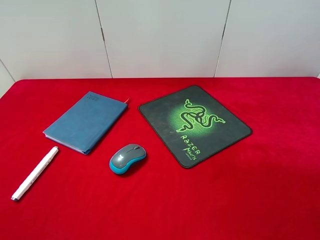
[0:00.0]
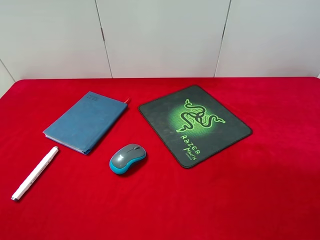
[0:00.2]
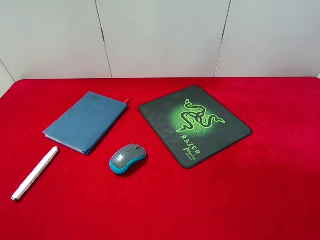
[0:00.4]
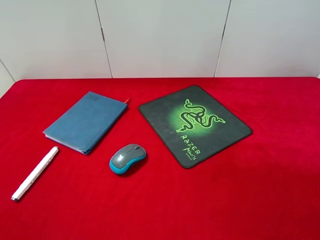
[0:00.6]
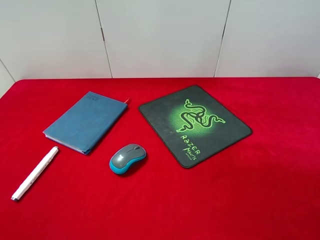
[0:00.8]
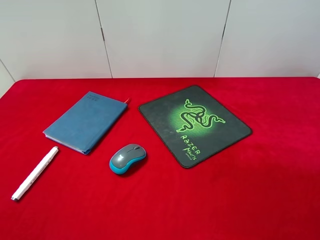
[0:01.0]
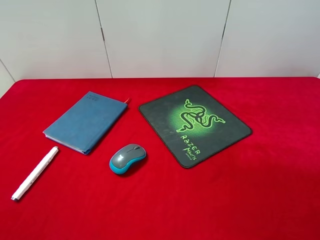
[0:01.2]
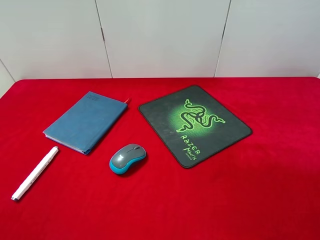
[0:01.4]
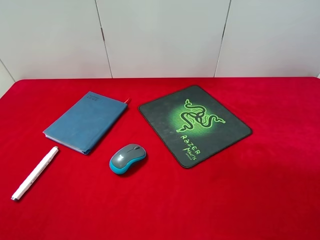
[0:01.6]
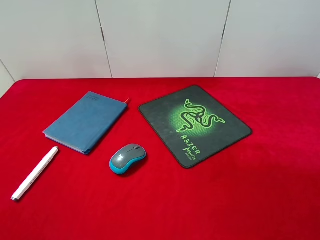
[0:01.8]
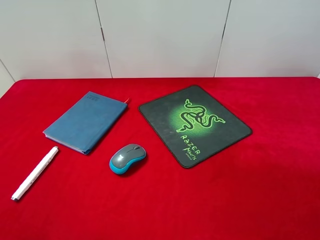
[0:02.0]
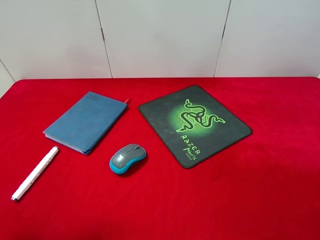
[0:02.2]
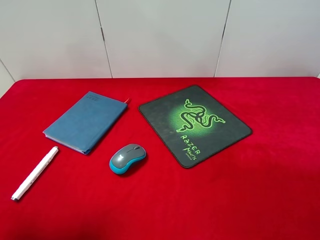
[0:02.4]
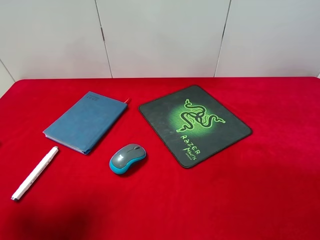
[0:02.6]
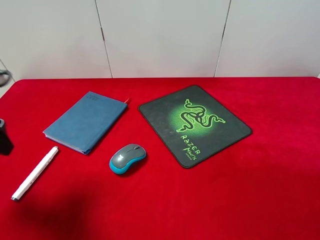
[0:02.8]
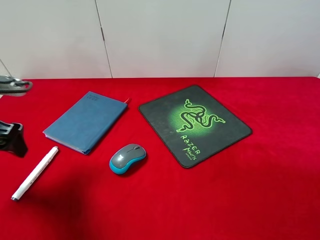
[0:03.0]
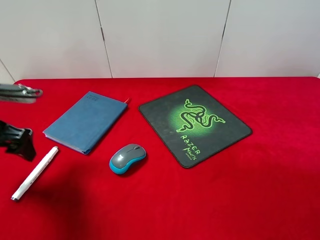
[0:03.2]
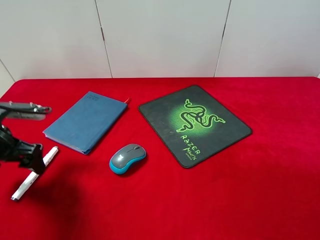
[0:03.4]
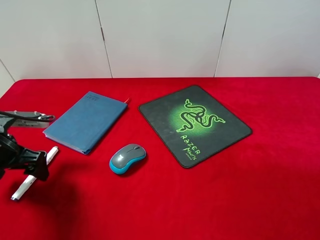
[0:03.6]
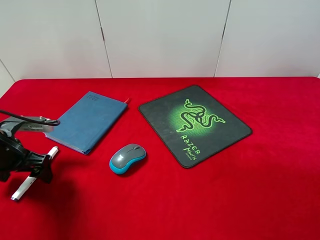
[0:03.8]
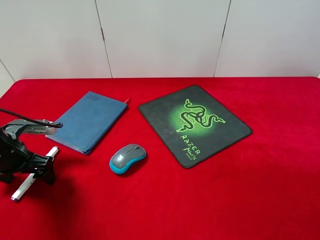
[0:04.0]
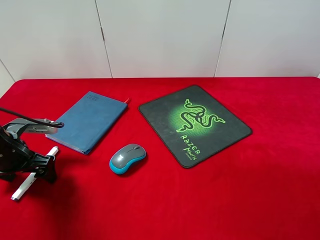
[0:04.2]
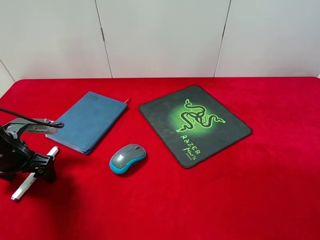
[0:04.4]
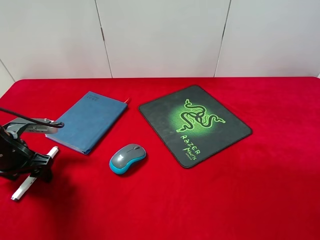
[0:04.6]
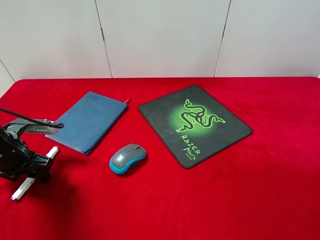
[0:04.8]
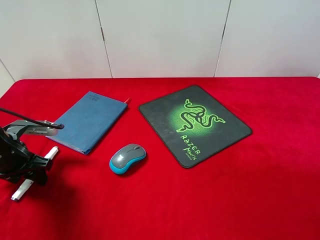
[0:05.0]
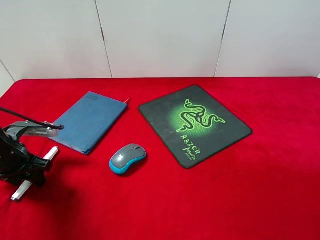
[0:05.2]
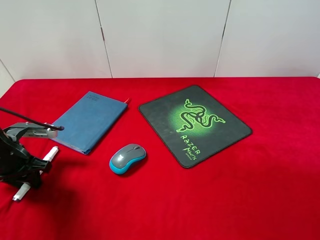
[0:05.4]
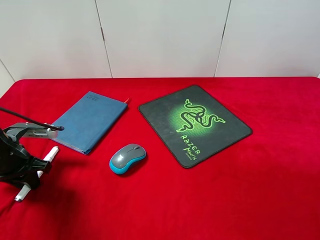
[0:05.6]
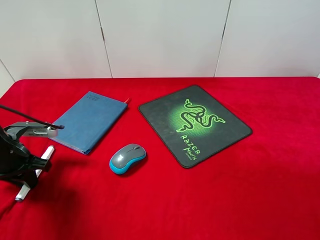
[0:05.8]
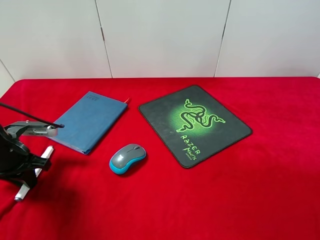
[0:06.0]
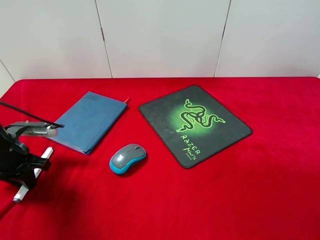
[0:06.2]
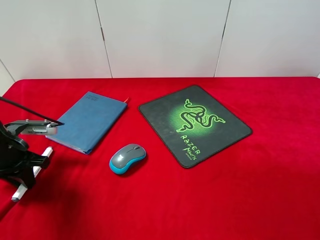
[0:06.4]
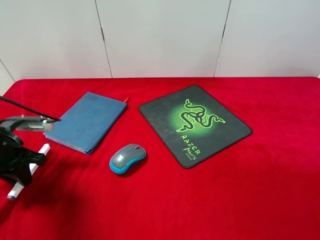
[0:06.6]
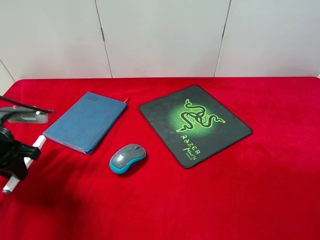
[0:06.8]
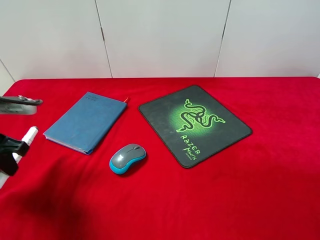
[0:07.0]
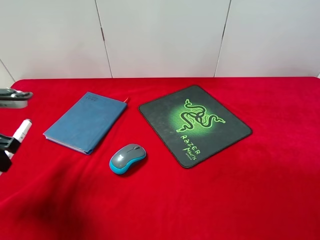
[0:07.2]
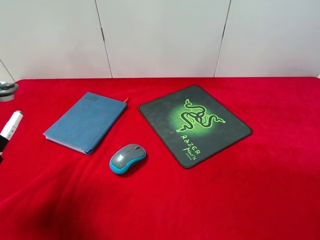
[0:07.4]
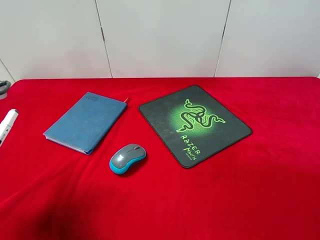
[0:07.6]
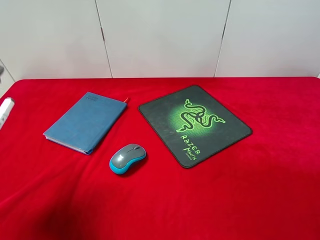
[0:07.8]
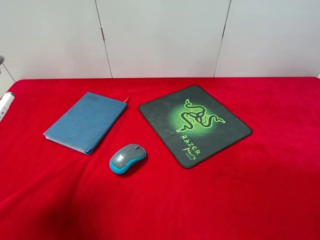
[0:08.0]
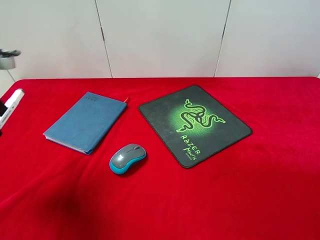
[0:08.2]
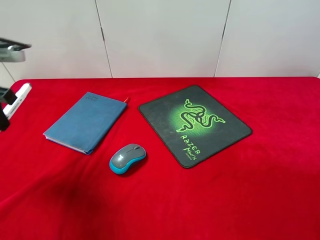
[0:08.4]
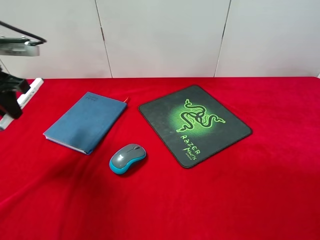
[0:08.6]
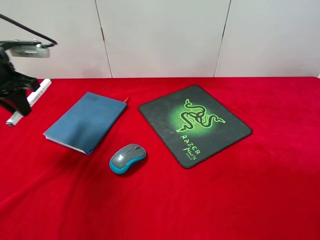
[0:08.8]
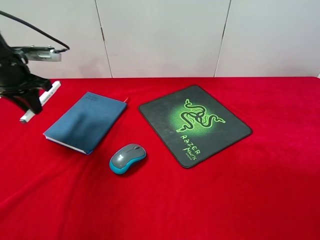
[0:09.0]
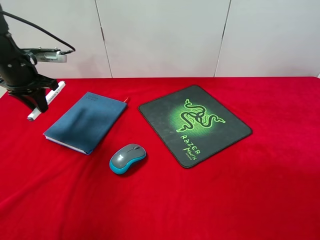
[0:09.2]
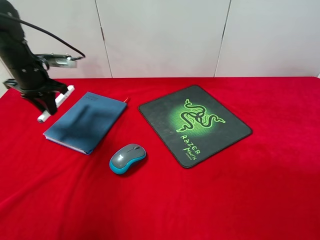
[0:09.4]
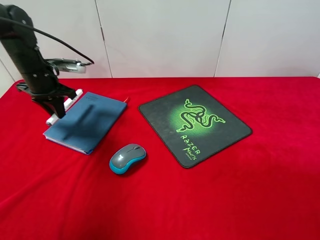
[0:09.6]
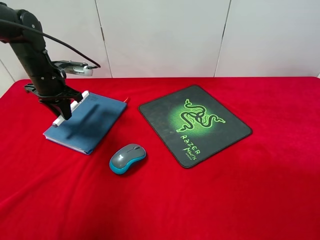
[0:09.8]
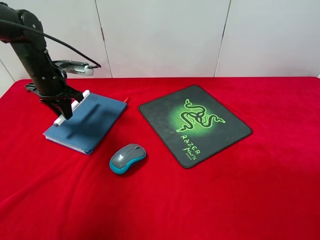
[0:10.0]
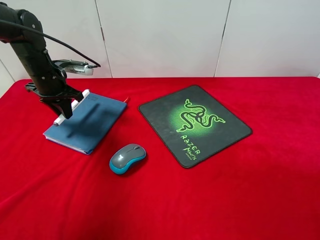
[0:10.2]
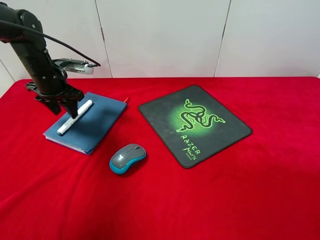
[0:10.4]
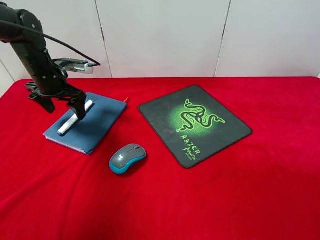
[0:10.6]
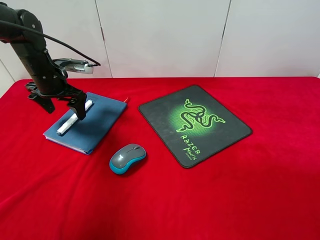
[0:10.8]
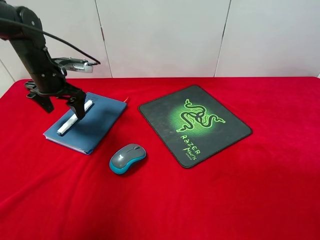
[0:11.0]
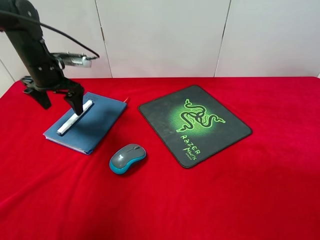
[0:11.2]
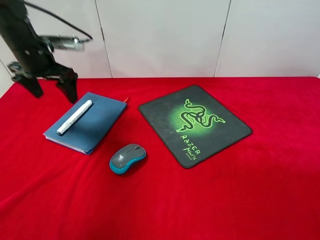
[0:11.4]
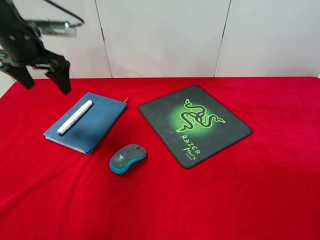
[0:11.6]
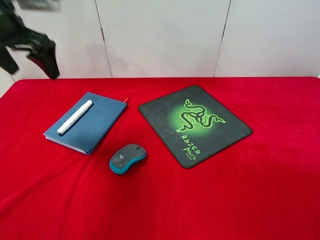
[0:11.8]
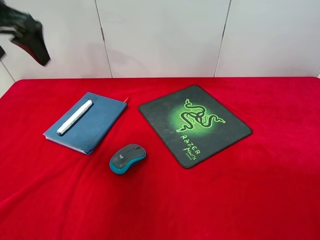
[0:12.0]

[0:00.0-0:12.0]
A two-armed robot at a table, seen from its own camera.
Step, 0:00.0 to 0:07.0: Pick up the marker pen with left gripper.
Step, 0:07.2 to 0:10.6: Place the marker pen on the notebook with left gripper.
0:01.6 to 0:03.0: The left gripper goes approximately 25 cm forward and downward.
0:03.0 to 0:04.4: The left gripper is displaced downward by about 10 cm.
0:04.4 to 0:06.0: The left gripper closes.
0:06.0 to 0:07.6: The left gripper heads upward and backward, covering some 15 cm.
0:07.6 to 0:09.0: The left gripper shifts about 20 cm forward.
0:09.0 to 0:10.4: The left gripper shifts by some 10 cm, and opens up.
0:10.4 to 0:12.0: The left gripper travels upward and backward by approximately 20 cm.

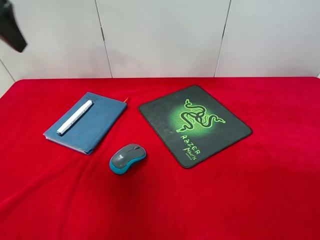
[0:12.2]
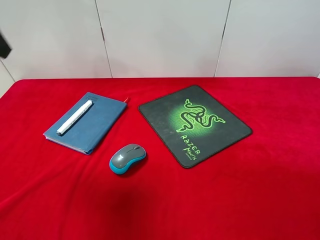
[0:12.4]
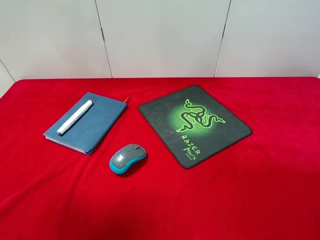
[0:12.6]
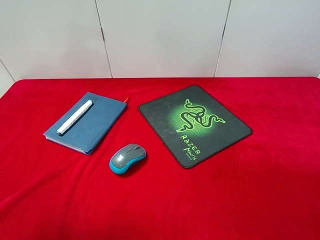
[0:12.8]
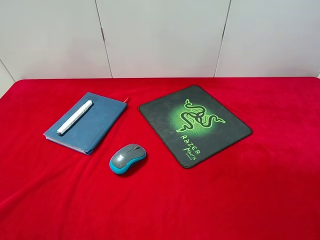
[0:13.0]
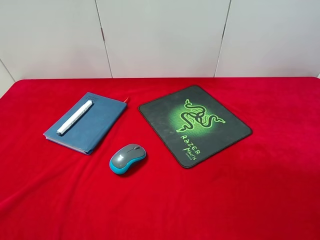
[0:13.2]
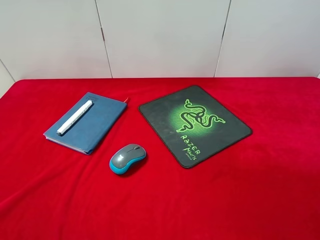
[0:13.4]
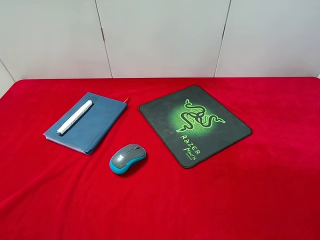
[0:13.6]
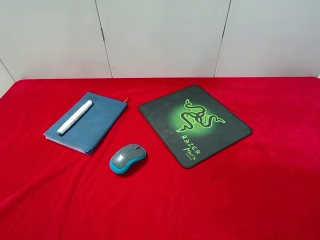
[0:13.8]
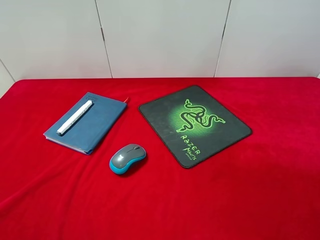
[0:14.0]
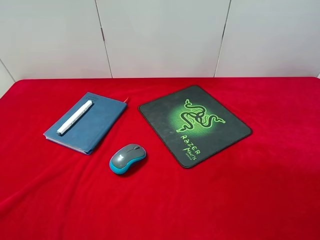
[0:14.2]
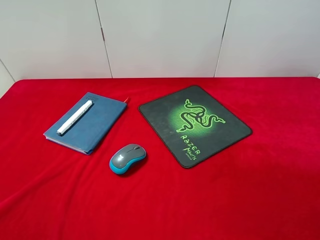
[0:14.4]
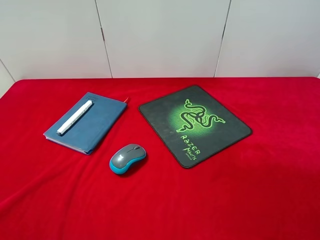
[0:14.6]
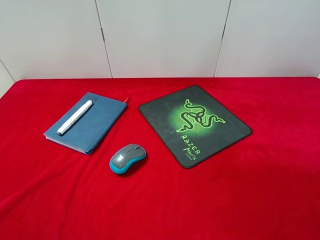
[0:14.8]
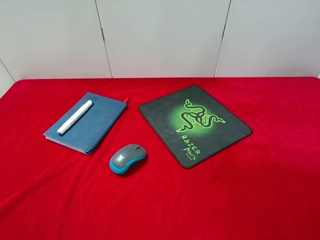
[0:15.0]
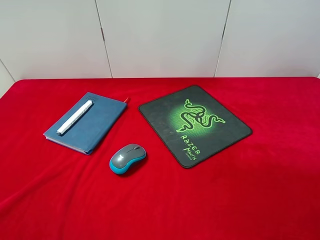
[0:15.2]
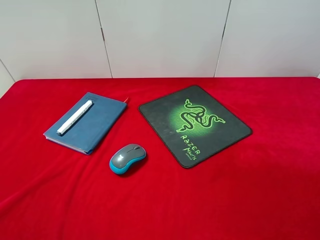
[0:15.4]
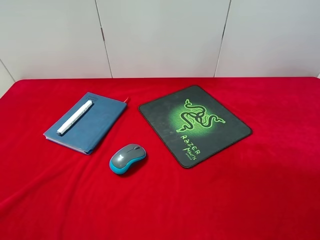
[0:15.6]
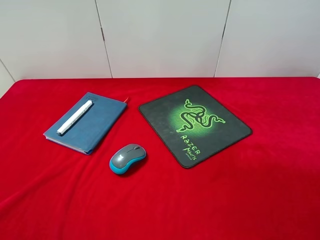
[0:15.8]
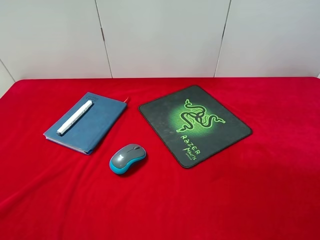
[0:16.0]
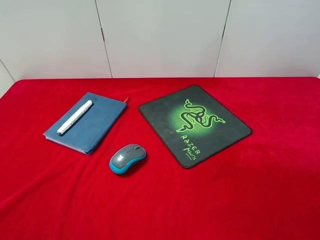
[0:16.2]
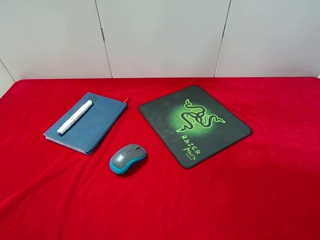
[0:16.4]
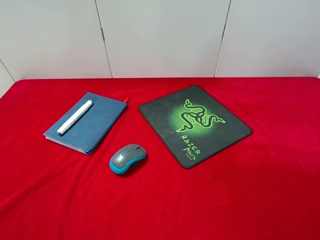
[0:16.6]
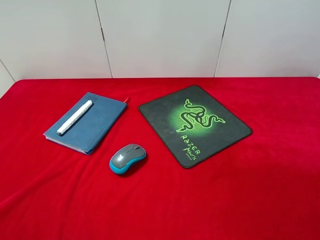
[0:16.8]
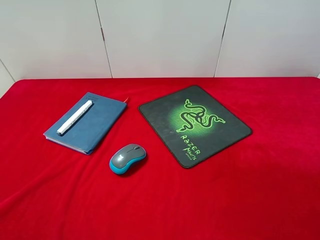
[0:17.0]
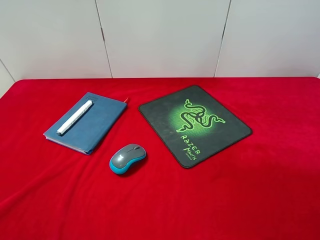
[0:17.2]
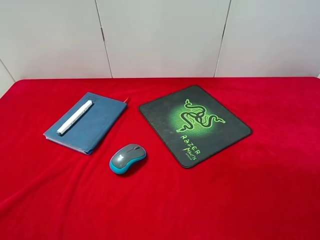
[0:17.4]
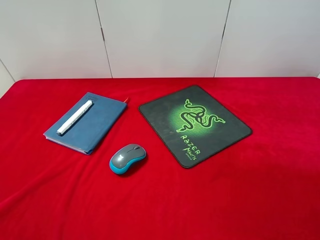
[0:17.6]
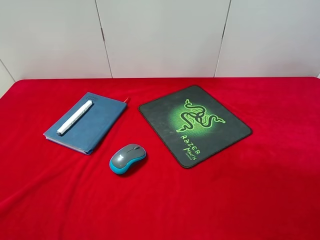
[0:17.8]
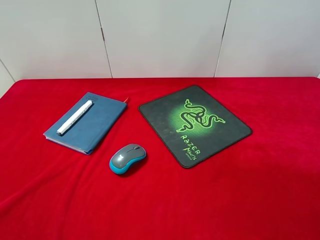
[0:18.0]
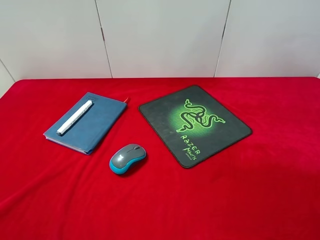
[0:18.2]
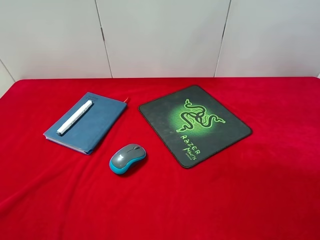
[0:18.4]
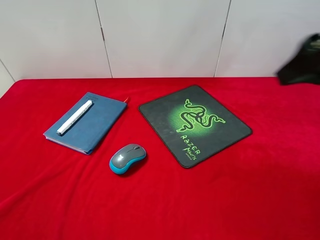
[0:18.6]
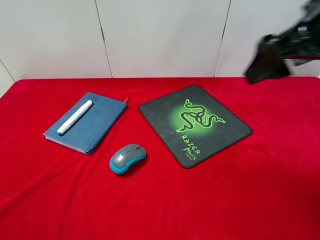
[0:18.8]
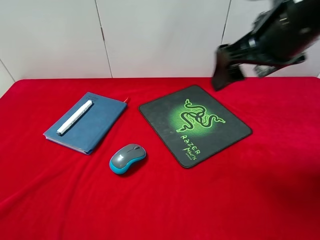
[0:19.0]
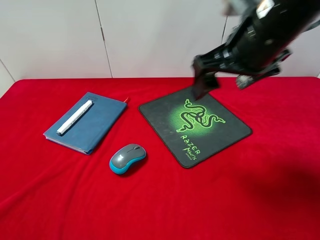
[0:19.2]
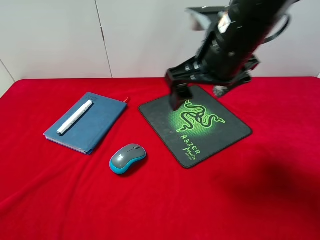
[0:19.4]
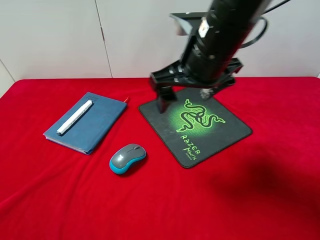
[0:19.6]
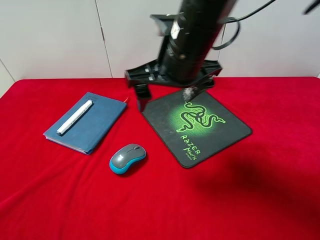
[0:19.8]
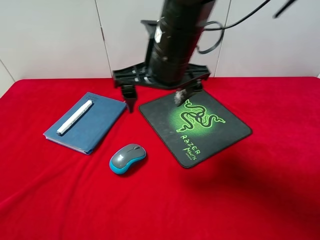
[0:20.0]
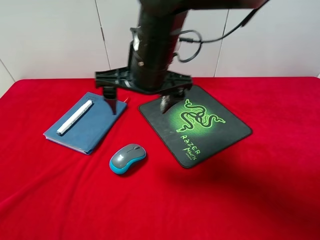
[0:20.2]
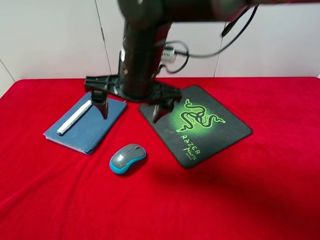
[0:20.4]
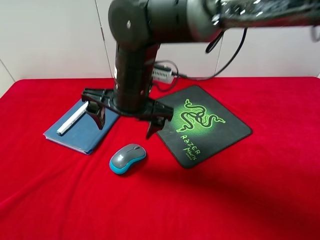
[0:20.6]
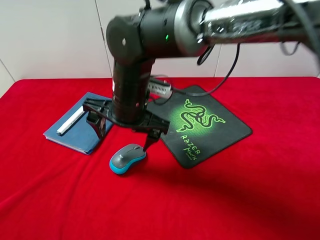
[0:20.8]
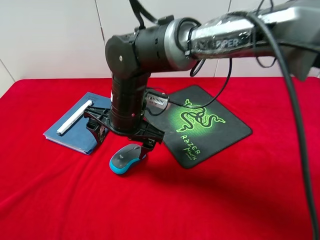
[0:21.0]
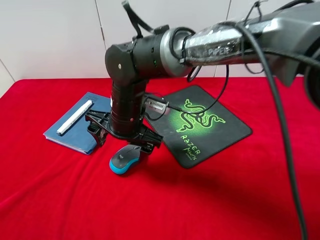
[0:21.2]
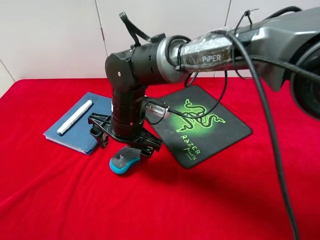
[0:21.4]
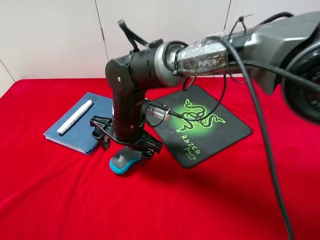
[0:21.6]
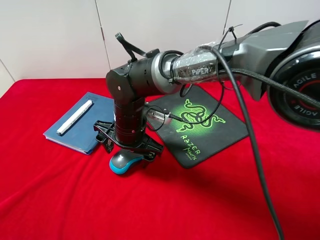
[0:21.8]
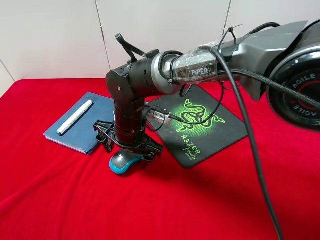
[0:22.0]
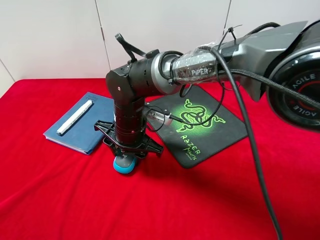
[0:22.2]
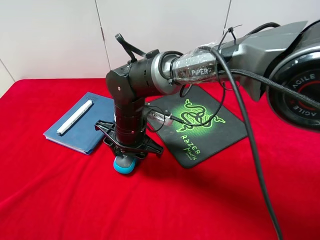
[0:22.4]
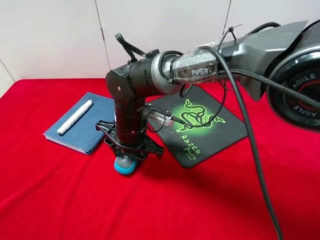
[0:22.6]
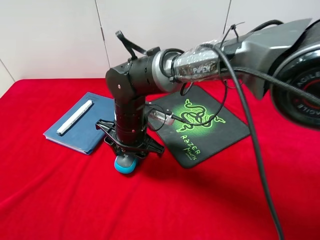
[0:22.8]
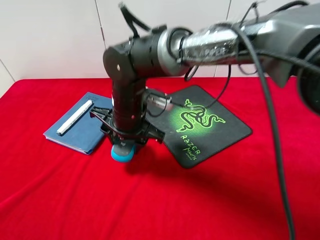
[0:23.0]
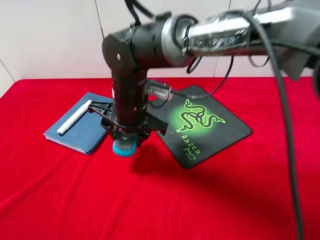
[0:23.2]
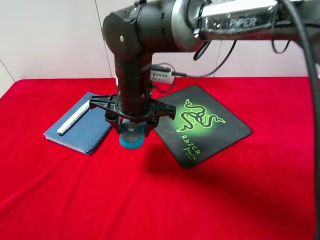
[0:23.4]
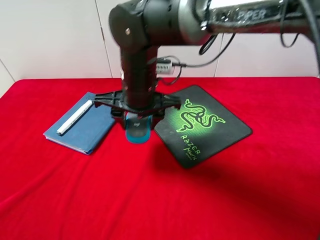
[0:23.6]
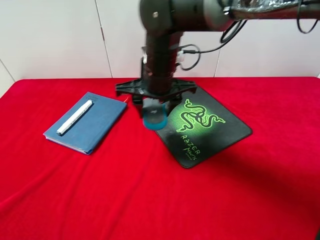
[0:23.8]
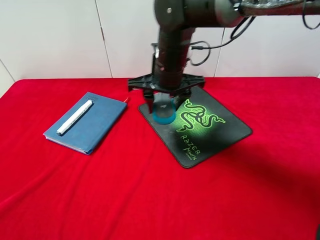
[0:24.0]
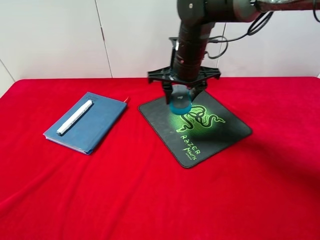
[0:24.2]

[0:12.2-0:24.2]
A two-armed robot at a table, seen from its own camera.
Step, 0:12.2 to 0:23.2: Pick up the mouse with right gripper.
0:12.2 to 0:13.8: The left gripper shifts about 30 cm backward.
0:18.2 to 0:19.8: The right gripper moves to the left and forward, approximately 30 cm.
0:19.8 to 0:21.2: The right gripper heads downward and to the left, covering about 15 cm.
0:21.2 to 0:22.6: The right gripper closes up.
0:22.6 to 0:24.2: The right gripper moves to the right, upward and forward, some 20 cm.
